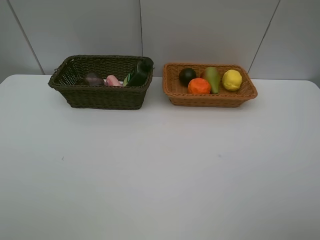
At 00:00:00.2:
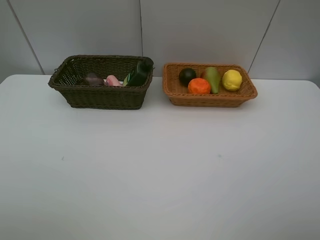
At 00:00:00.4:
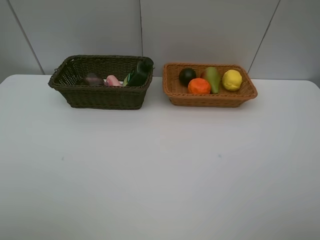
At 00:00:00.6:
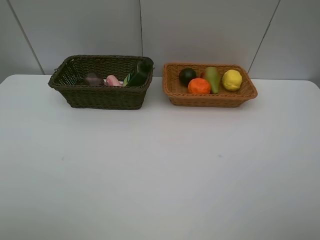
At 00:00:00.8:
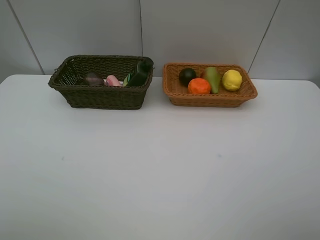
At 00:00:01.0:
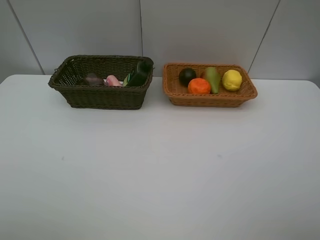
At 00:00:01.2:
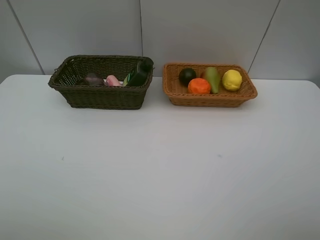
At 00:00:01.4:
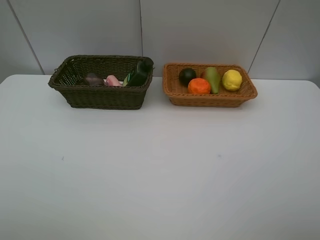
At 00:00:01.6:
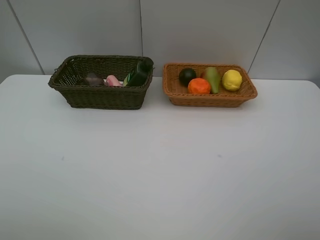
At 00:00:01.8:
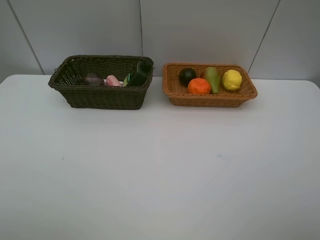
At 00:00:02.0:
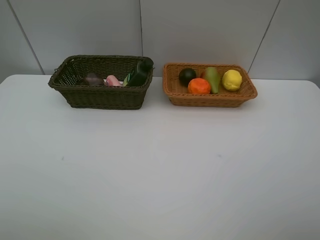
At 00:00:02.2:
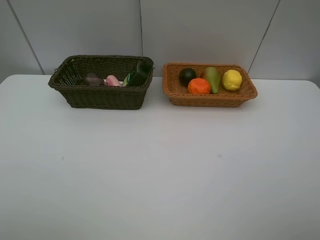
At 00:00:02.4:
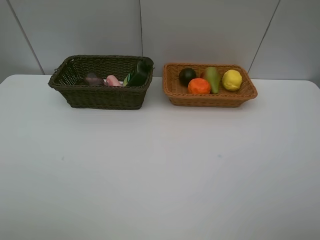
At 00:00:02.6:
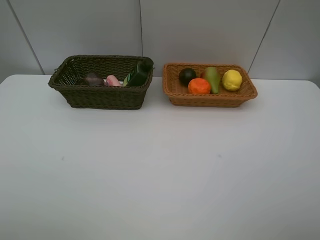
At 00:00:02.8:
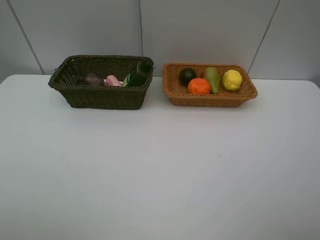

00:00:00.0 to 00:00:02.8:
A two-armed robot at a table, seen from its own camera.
Task of the whole recording: Place multiple objects separately in different baskets.
00:00:01.4 to 00:00:02.8: Both grippers stay about where they are.
